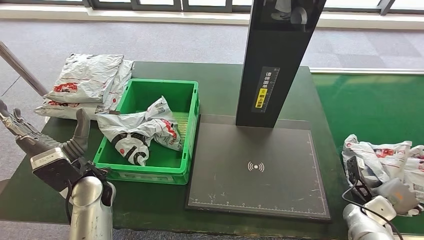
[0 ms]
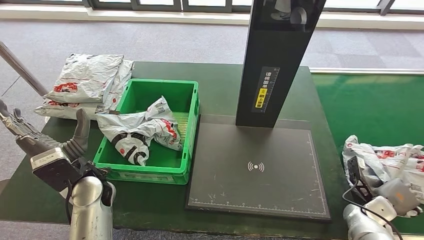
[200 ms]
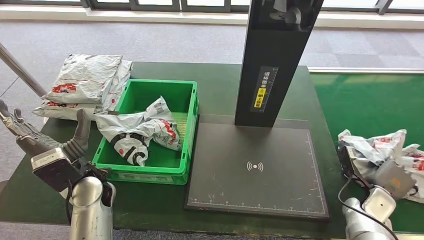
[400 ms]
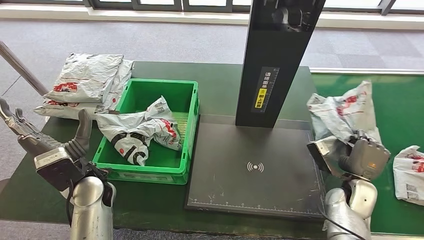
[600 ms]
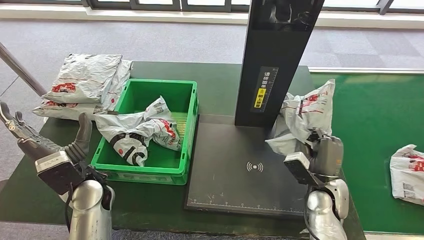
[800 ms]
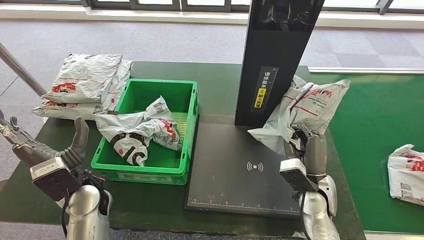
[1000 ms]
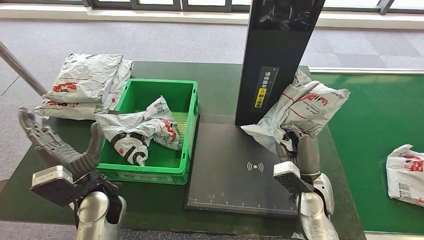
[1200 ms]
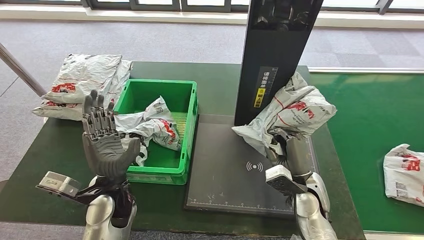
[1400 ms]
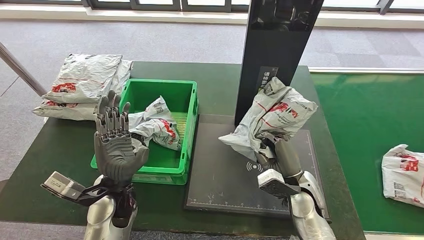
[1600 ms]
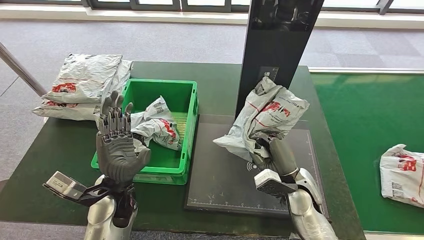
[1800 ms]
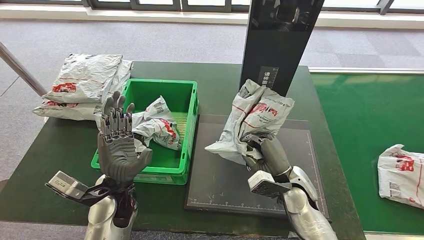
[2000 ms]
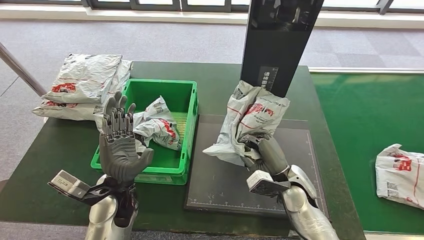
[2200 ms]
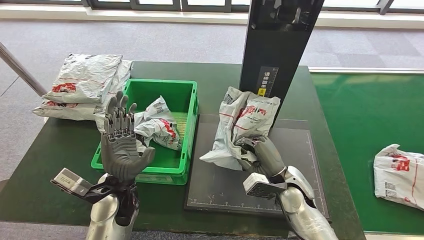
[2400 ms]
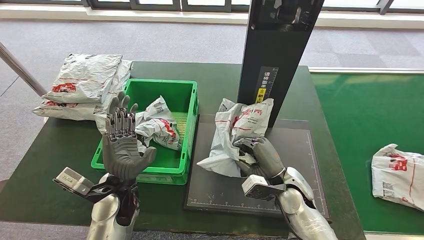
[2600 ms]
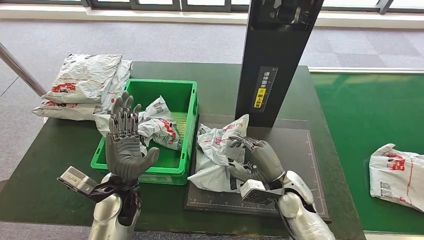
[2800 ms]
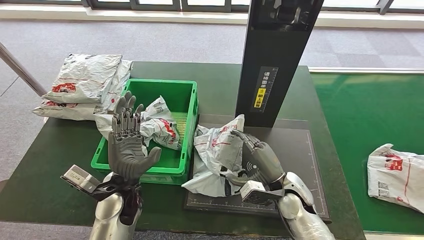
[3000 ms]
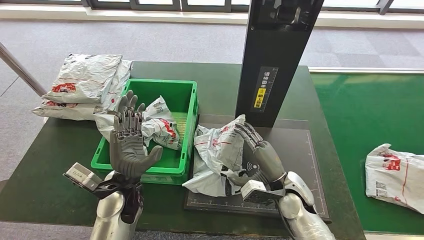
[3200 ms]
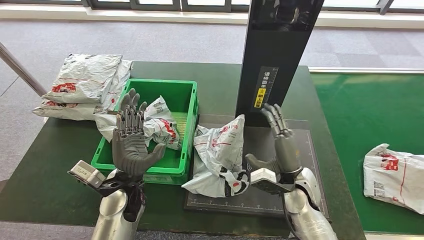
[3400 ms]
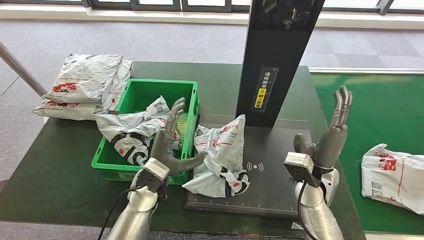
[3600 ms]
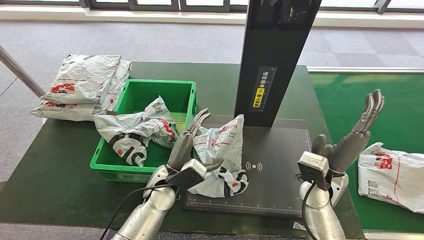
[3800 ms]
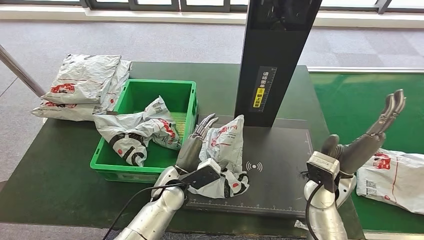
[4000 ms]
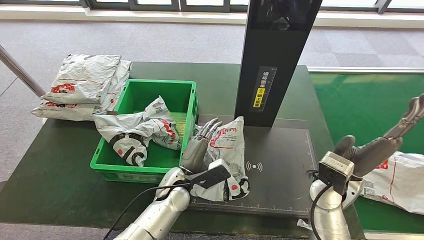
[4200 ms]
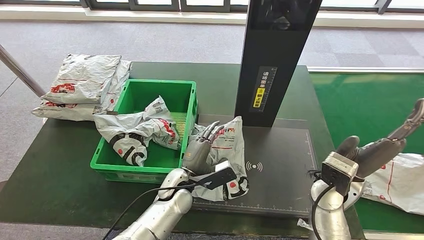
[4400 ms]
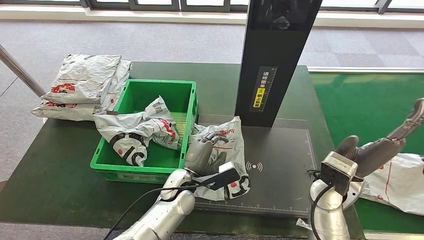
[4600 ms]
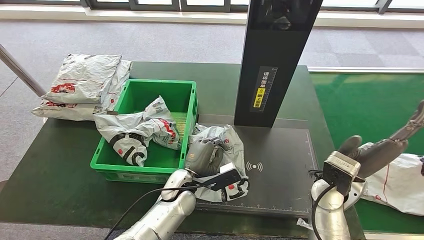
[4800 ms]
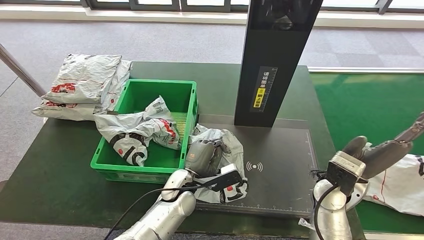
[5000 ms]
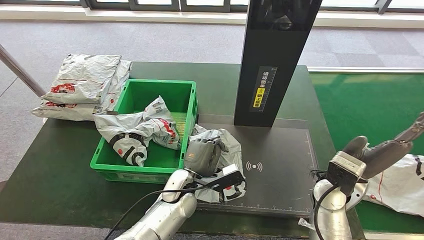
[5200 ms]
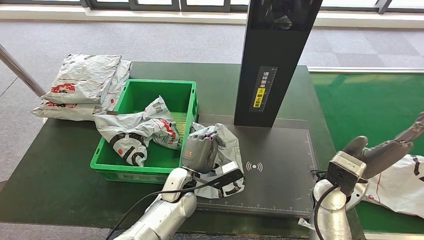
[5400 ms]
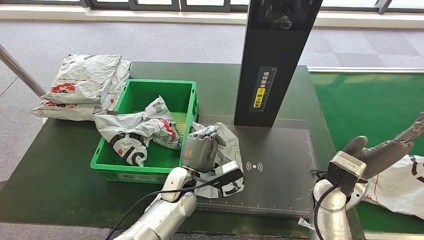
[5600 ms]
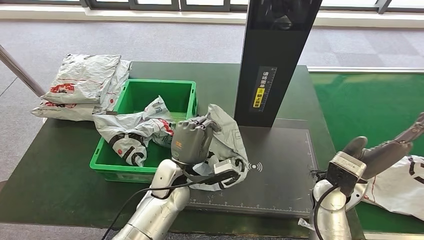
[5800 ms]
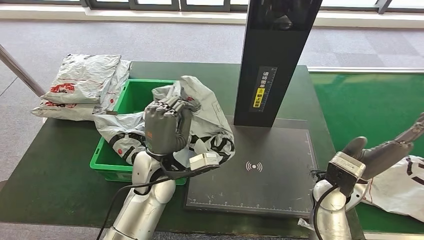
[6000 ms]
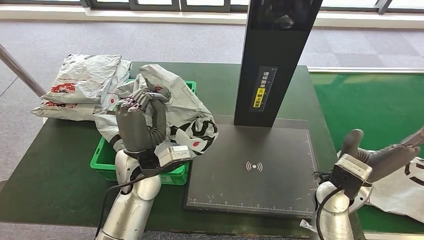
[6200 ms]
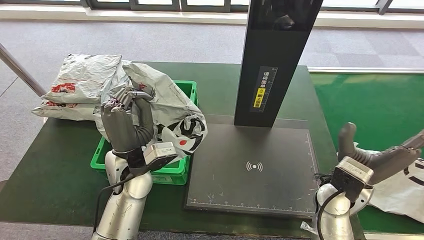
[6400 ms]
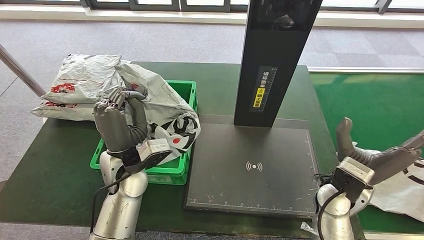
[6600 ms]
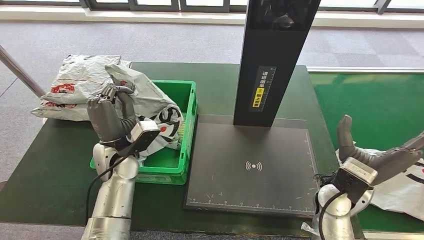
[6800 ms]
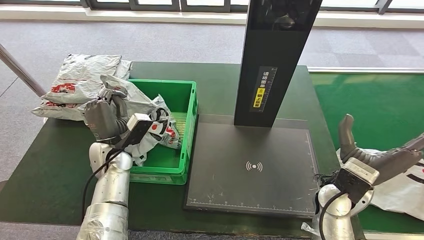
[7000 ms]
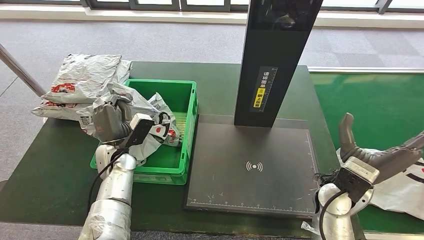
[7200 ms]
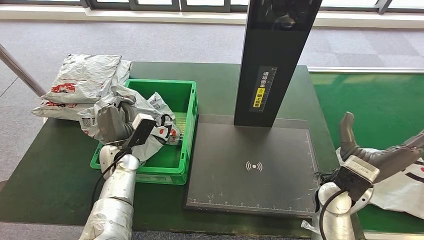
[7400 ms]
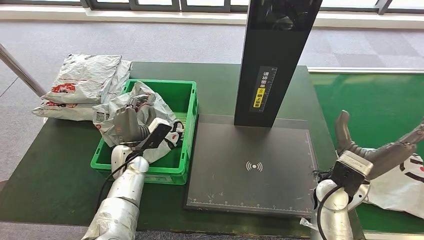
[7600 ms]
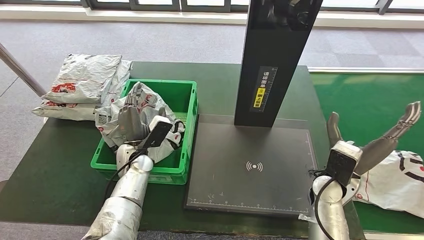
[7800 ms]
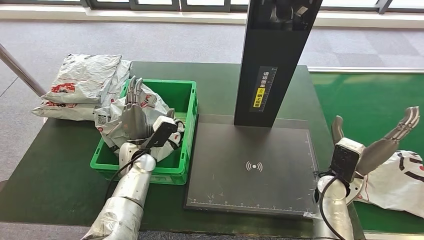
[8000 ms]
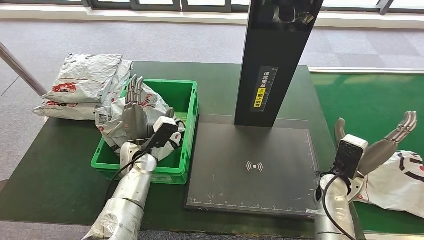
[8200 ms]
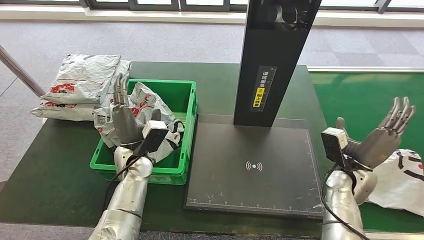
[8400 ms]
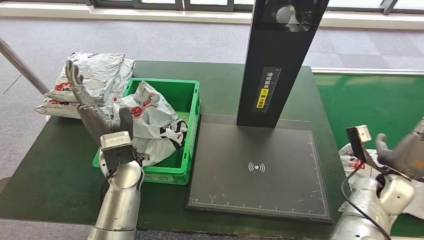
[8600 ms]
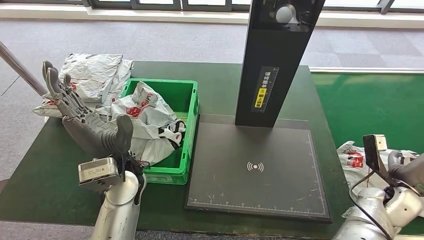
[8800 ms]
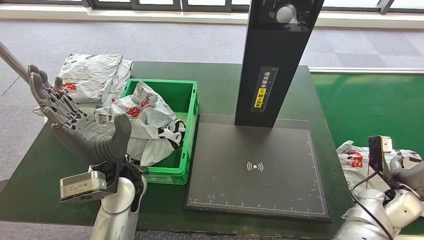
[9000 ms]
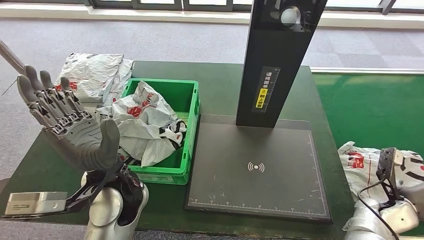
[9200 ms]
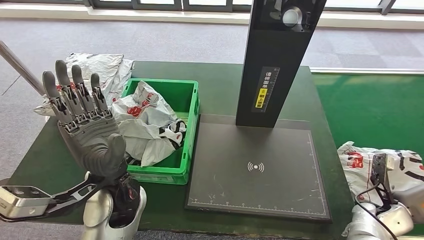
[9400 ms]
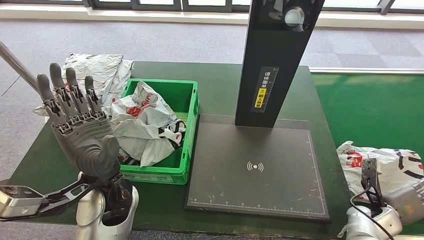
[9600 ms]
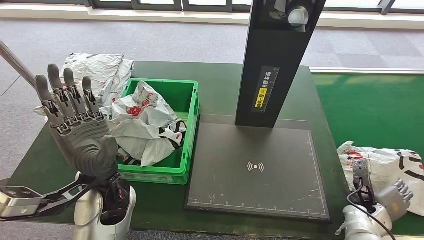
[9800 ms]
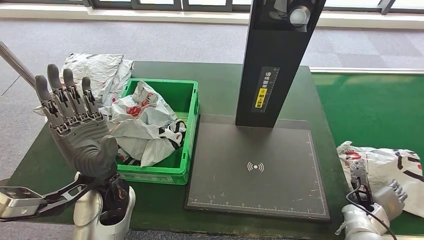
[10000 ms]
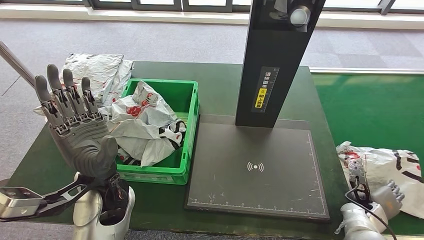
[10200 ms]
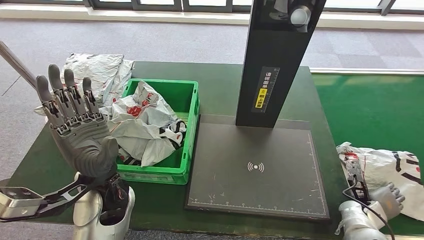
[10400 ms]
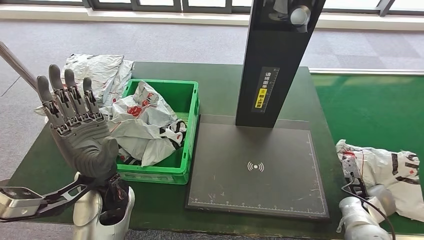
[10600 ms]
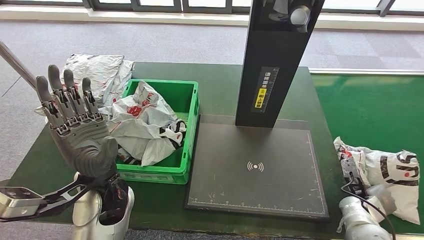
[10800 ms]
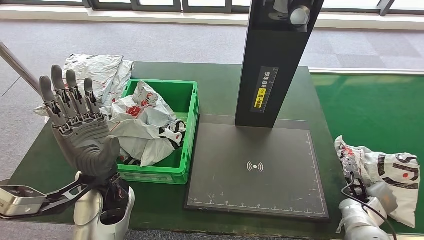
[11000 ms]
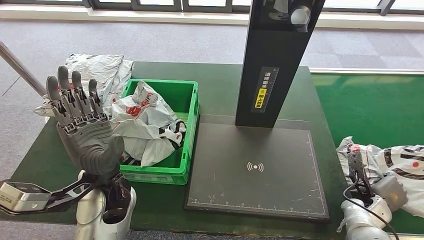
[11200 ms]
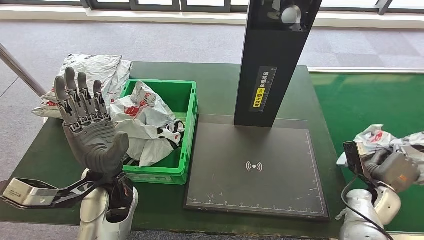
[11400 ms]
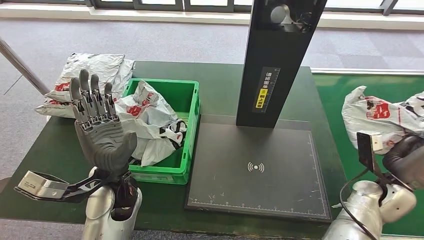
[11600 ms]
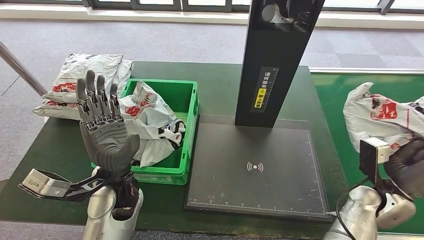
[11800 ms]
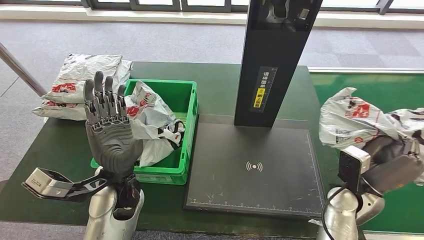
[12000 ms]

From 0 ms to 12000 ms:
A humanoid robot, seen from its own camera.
Step, from 1200 ms to 4200 ms: Place the parcel onto the inbound machine.
Step, from 4400 ms to 6600 ms: Pick up the parcel from the inbound machine.
Step, from 6800 ms to 9000 ms: Place the parcel into the delivery box.
From 1600 ms to 3000 ms: The hands move only a little.
From 4400 ms to 6000 ms: The left hand goes approximately 10 cm upward.
From 6000 ms to 7600 ms: The left hand travels to the left, downward and forward by roughly 15 cm.

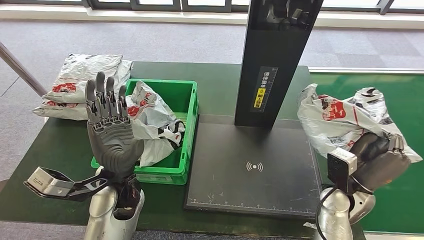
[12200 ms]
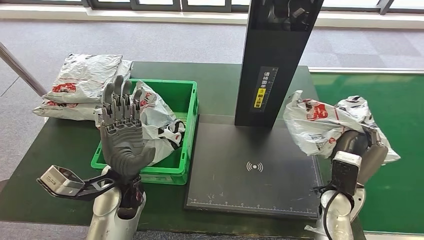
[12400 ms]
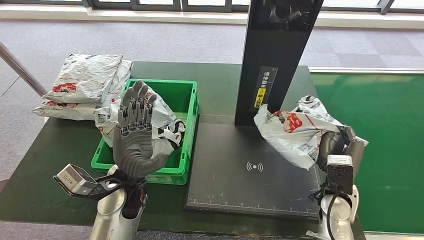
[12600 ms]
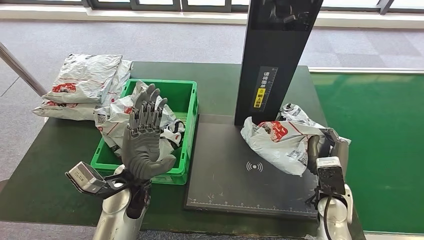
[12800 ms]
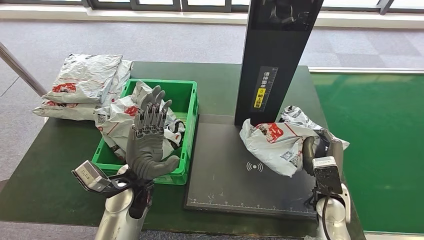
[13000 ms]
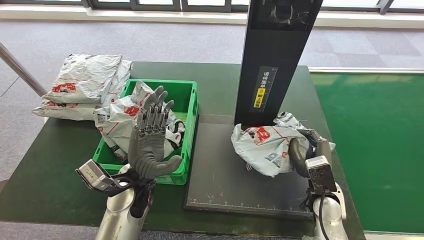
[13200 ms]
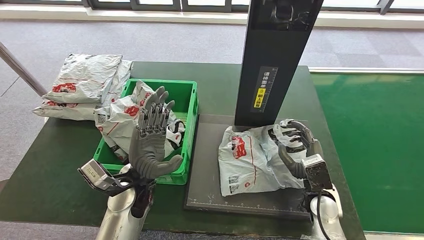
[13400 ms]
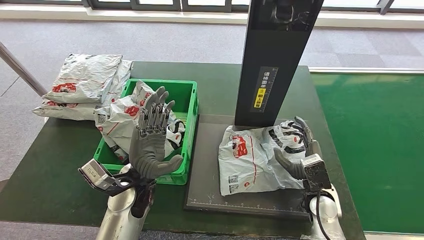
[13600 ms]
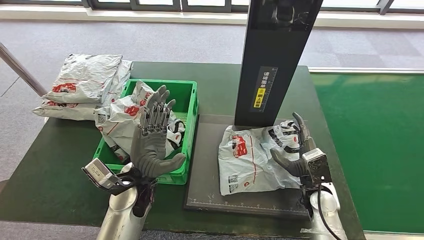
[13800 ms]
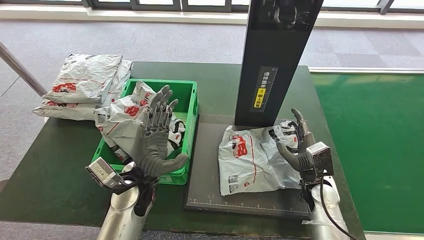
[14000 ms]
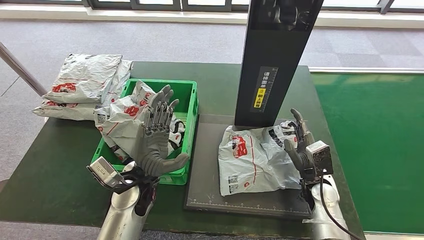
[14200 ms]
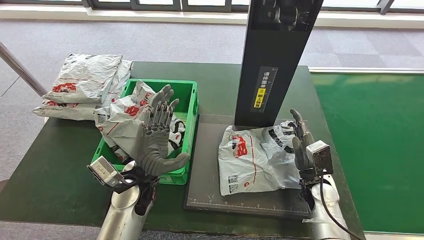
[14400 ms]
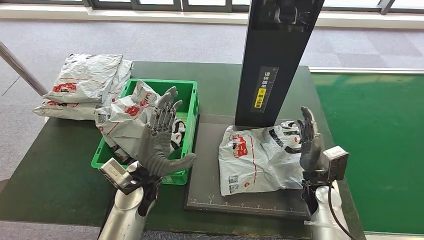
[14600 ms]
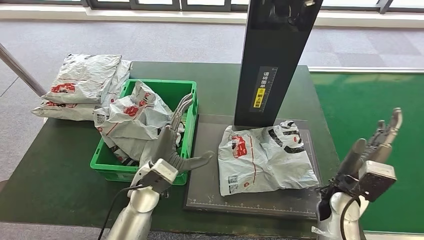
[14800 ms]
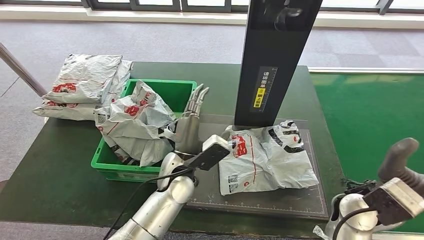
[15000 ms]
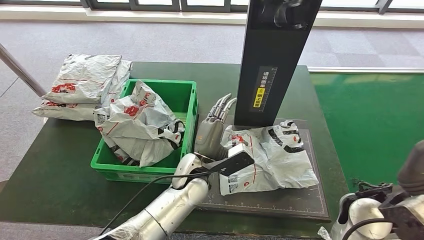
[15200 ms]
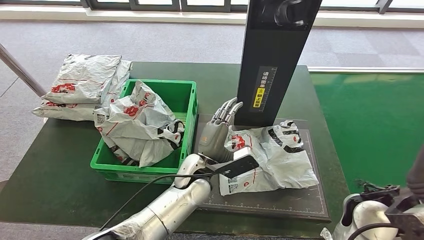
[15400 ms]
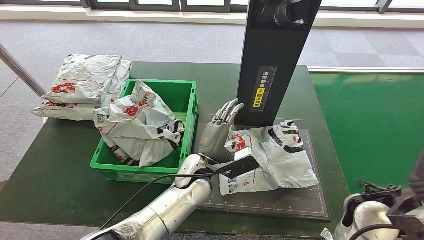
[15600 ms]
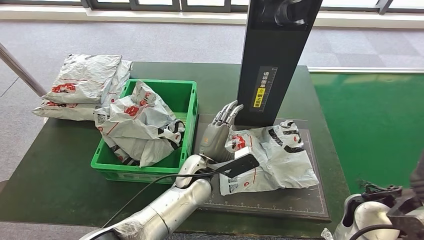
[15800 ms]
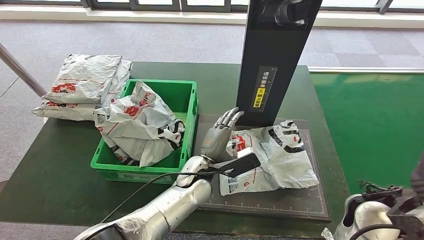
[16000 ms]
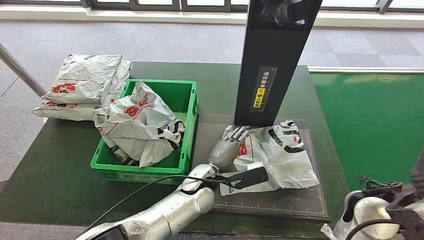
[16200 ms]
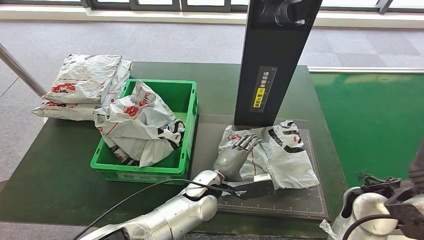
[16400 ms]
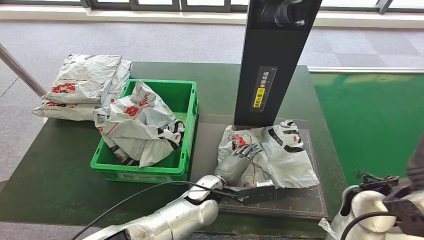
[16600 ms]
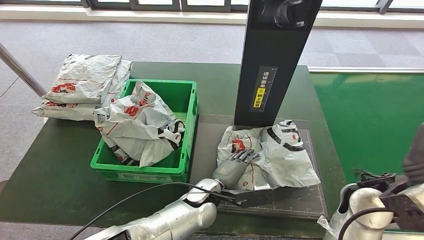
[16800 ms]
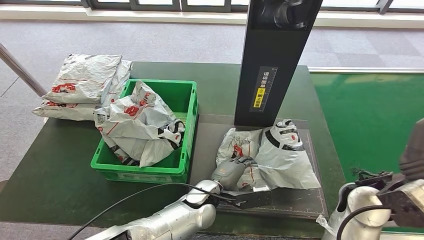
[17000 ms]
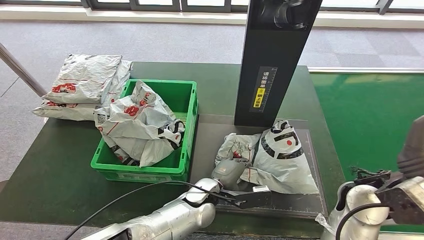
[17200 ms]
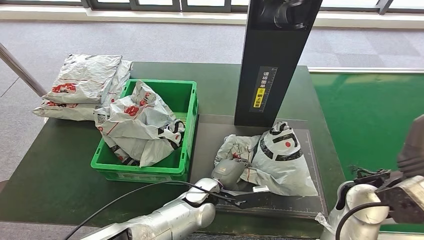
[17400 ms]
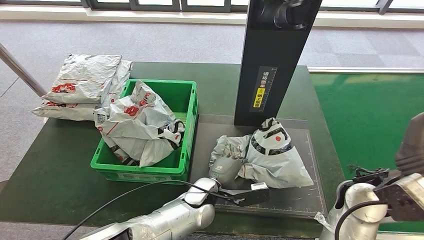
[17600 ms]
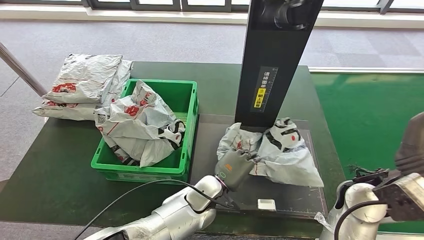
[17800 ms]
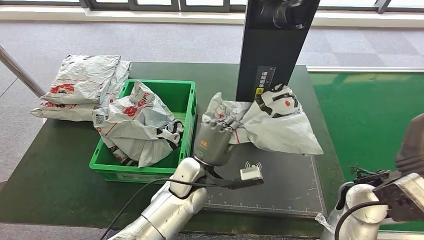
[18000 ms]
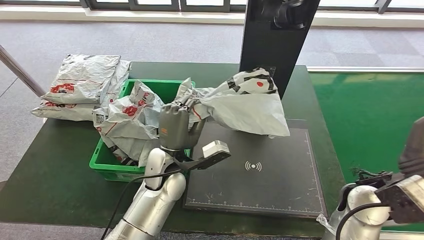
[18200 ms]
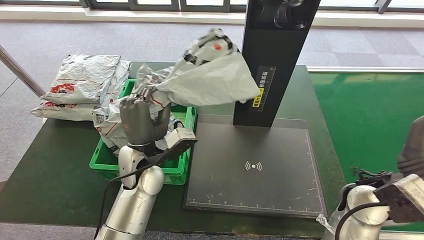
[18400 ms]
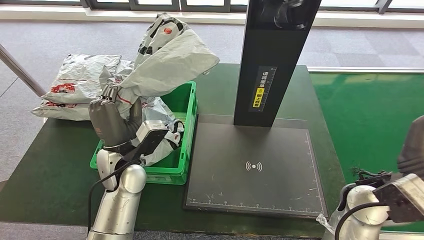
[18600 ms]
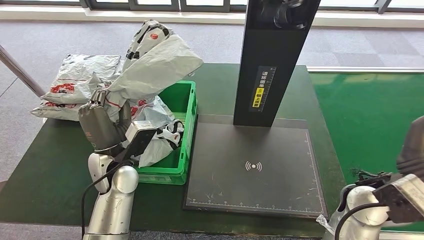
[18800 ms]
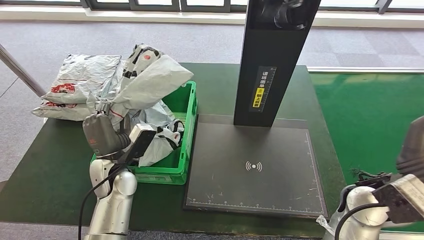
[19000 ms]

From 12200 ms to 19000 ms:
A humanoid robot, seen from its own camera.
Step, from 12400 ms to 14200 ms: Place the parcel onto the inbound machine.
Step, from 14400 ms to 18600 ms: Pick up the parcel from the inbound machine.
From 13600 ms to 15000 ms: The right hand moves upward, roughly 15 cm. Meanwhile the left hand travels to the right by approximately 10 cm.
From 15000 ms to 16200 ms: The left hand is displaced to the right by approximately 5 cm.
From 16200 ms to 17600 ms: The hands move only a little.
